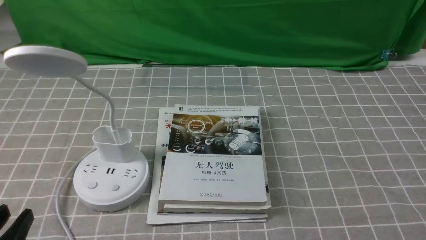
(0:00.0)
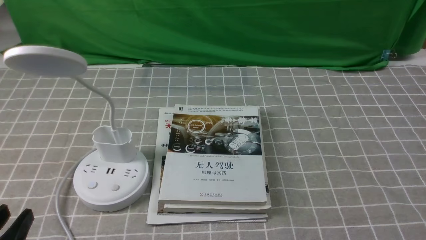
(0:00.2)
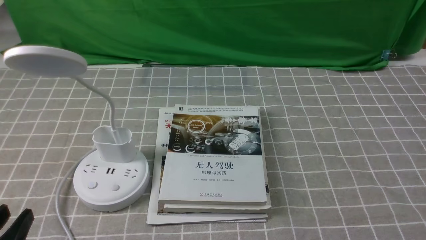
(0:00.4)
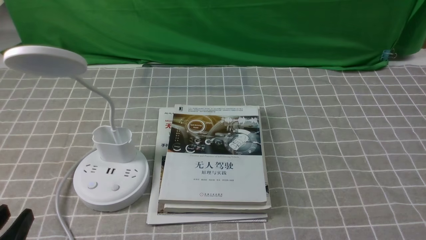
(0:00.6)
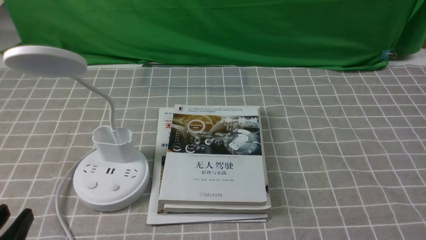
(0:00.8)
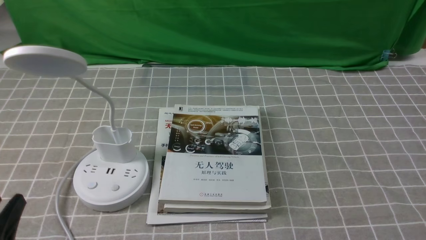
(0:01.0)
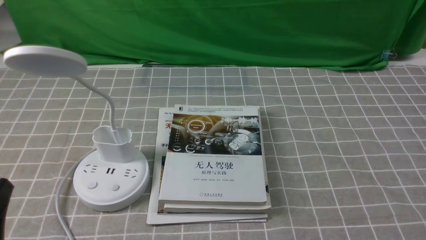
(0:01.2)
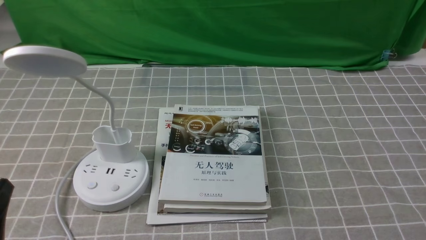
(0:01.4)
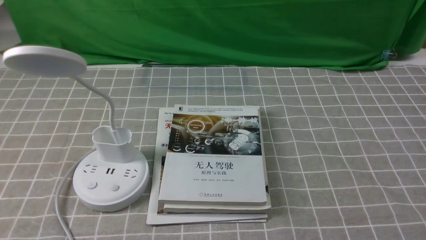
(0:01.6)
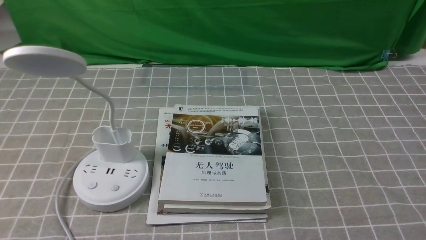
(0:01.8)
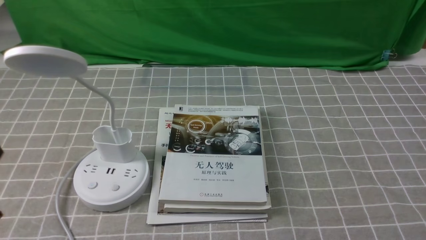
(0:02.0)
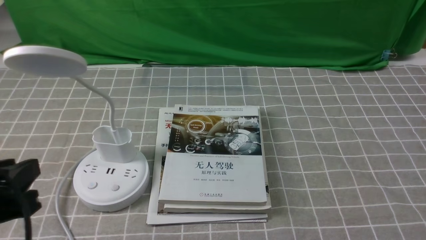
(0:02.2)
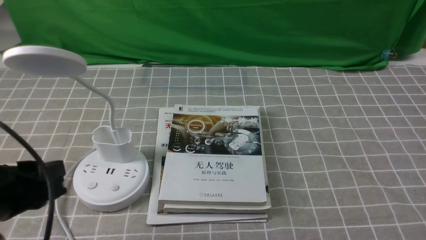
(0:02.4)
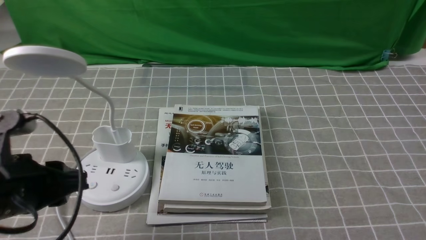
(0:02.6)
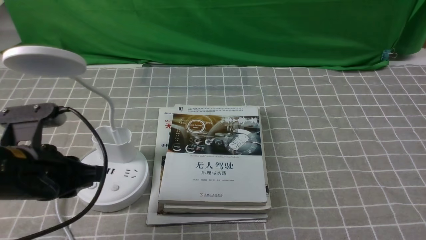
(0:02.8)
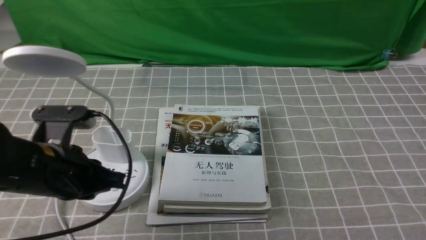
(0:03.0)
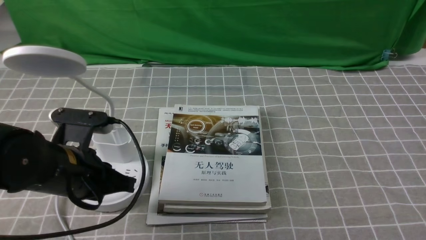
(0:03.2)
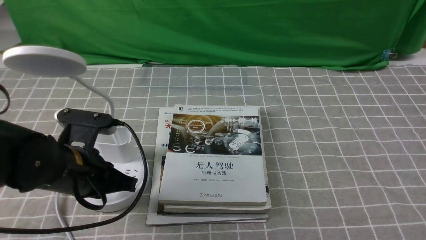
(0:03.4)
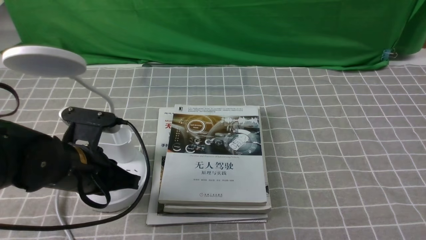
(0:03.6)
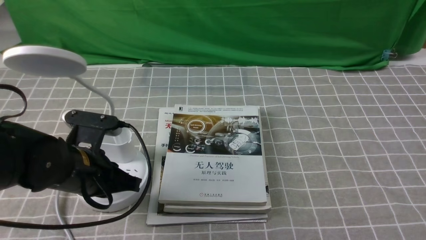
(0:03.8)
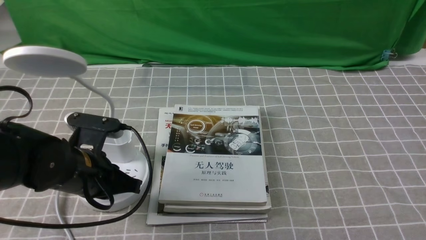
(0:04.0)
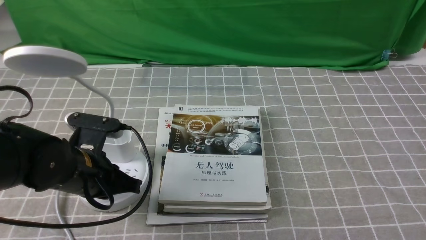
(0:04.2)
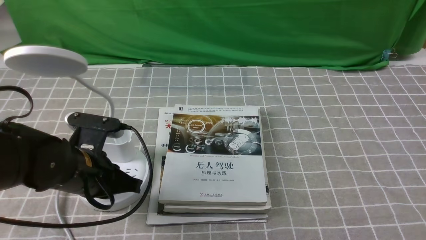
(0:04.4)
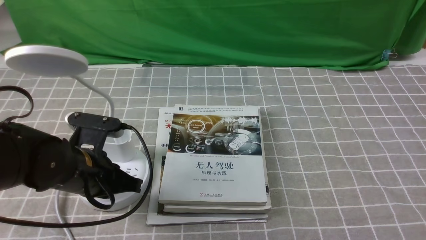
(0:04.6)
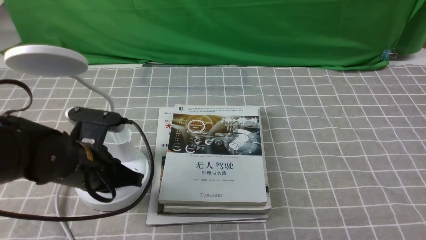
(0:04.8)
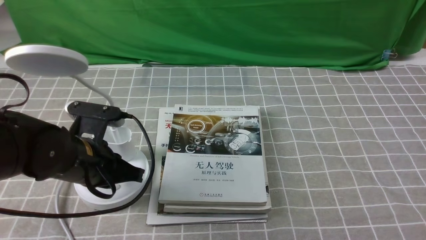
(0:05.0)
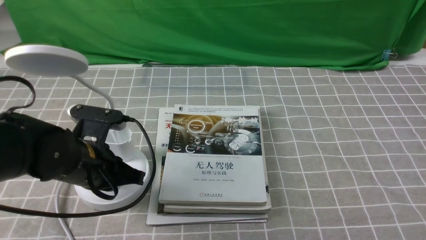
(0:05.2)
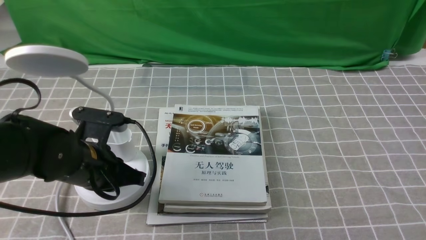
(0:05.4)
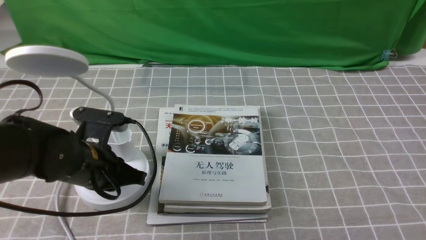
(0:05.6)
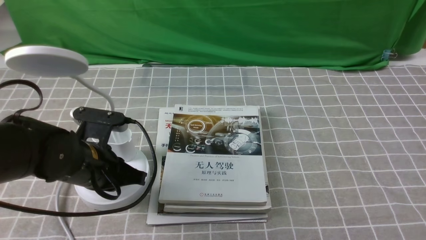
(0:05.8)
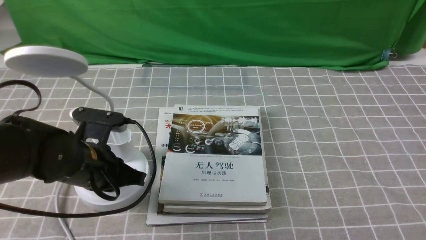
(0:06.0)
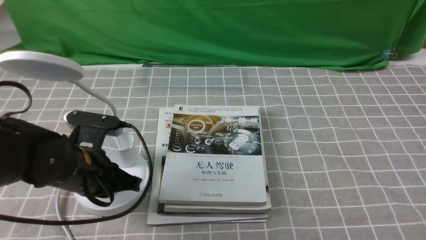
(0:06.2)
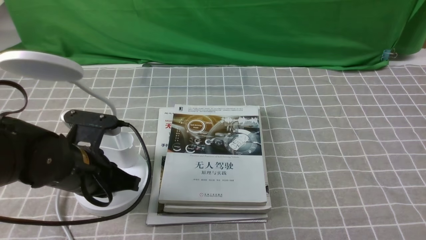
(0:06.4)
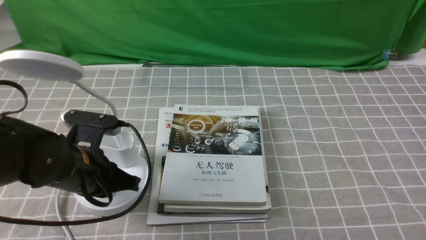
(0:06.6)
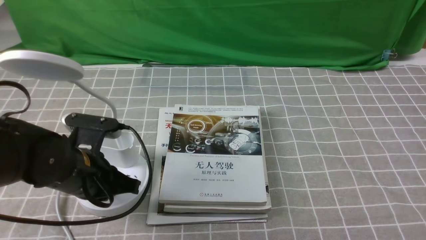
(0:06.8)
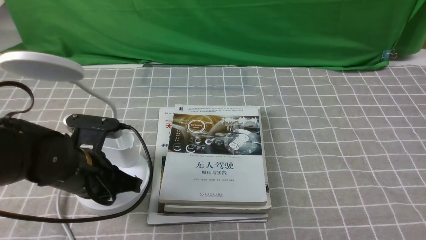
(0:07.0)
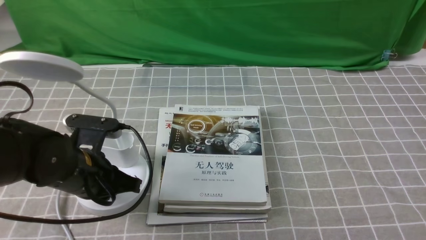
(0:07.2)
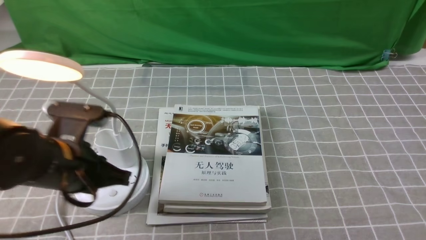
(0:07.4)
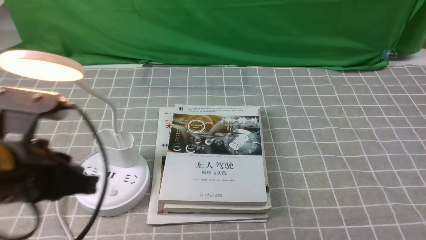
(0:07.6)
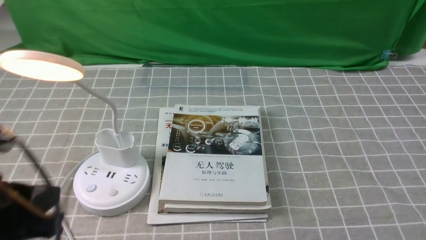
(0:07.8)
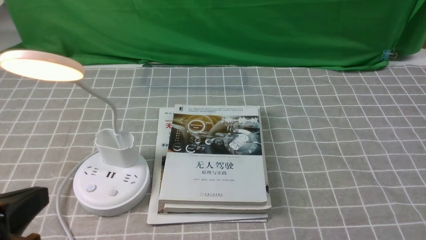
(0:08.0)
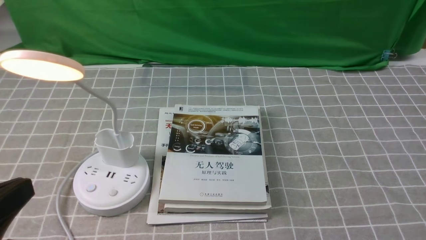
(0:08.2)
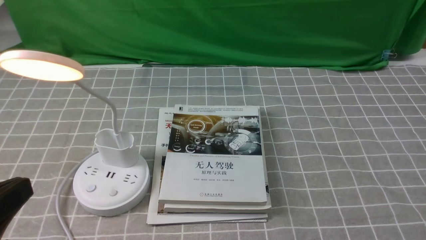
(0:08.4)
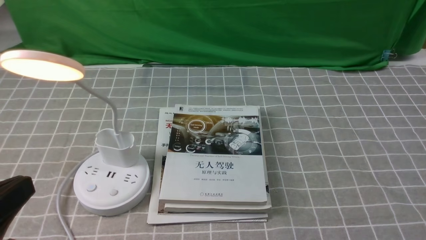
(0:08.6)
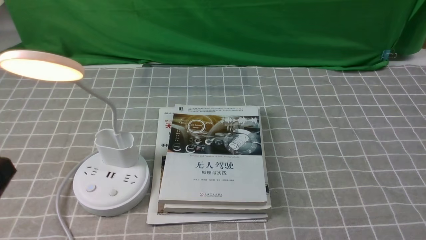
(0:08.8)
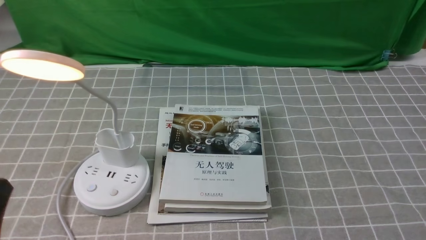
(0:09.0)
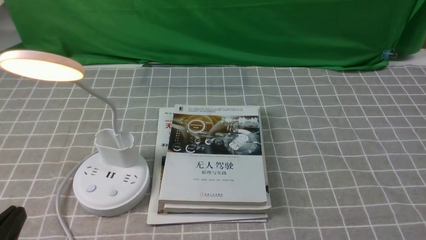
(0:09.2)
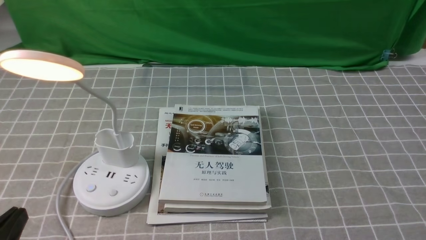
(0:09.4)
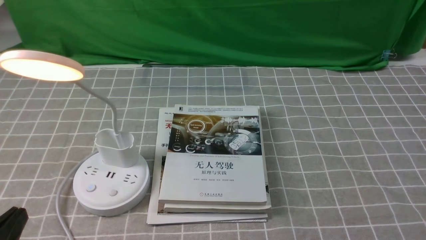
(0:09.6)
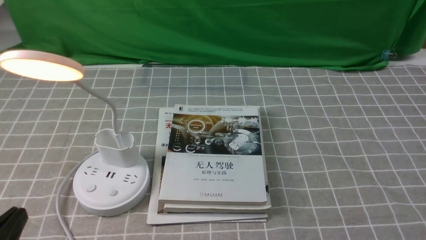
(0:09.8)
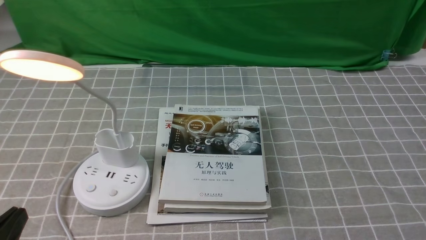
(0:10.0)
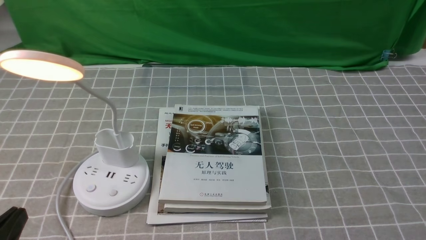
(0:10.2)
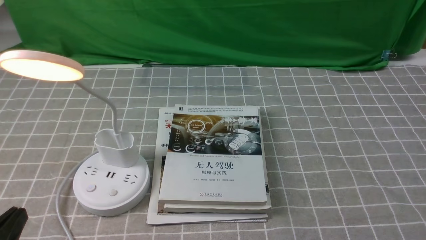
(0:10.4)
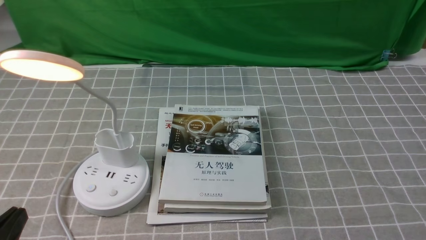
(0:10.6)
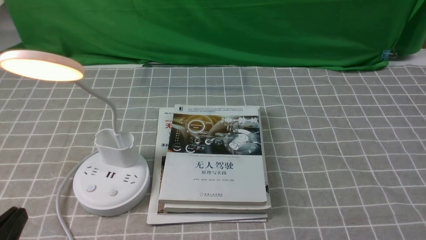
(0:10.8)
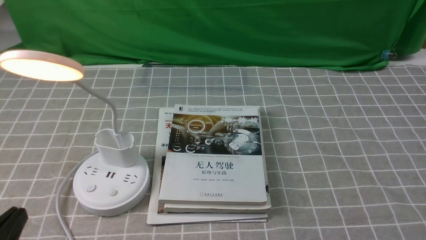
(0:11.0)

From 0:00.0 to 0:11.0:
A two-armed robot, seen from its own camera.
Step, from 0:00.0 to 0:07.4: use the left arm to press the button switch on the lamp holder.
From 0:01.6 to 0:03.2: The left gripper heads forward, covering some 15 cm, and closes its fingers.
From 0:03.2 to 0:04.8: There are only small adjustments of the grippers.
From 0:04.8 to 0:06.2: Both grippers stay put.
From 0:06.2 to 0:07.8: The left gripper shifts some 15 cm backward and upward.
From 0:07.8 to 0:09.4: The left gripper travels backward and downward by about 15 cm.
From 0:09.4 to 0:11.0: The two grippers keep their place.
